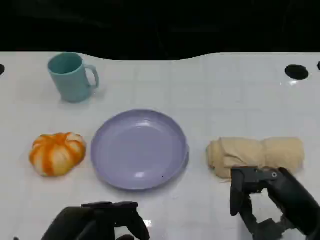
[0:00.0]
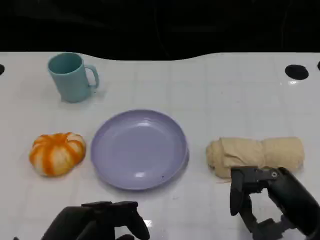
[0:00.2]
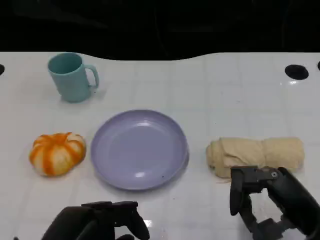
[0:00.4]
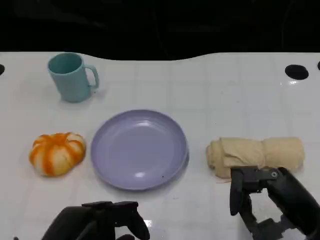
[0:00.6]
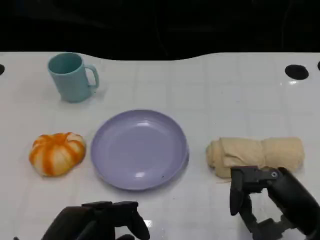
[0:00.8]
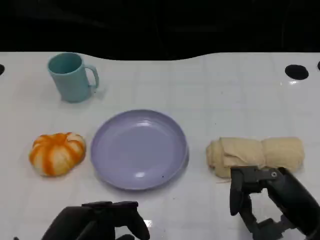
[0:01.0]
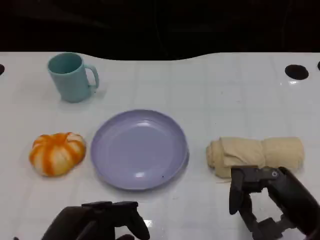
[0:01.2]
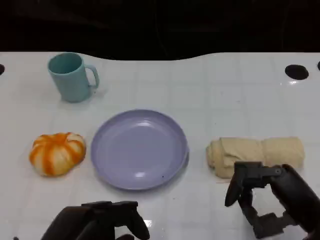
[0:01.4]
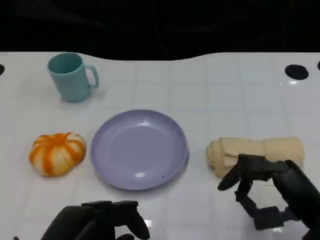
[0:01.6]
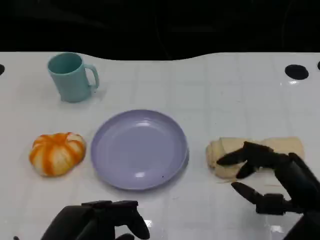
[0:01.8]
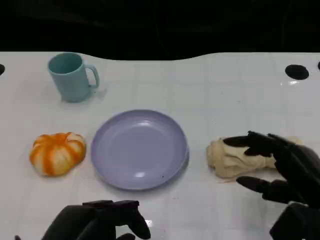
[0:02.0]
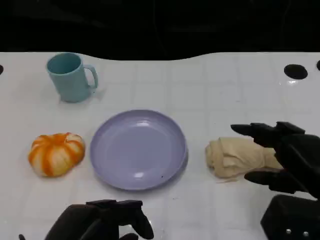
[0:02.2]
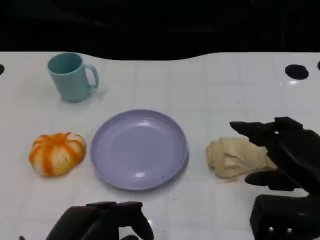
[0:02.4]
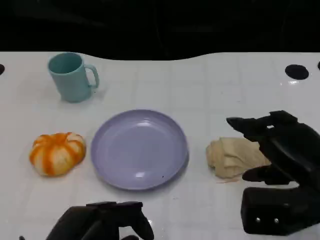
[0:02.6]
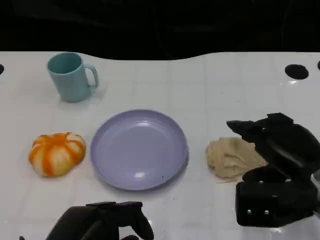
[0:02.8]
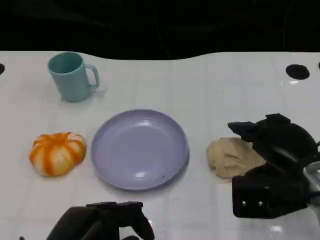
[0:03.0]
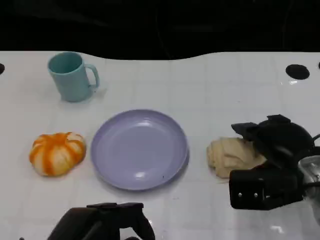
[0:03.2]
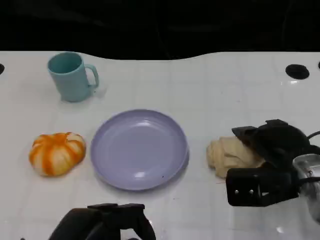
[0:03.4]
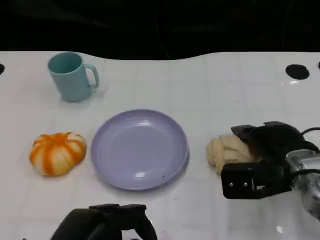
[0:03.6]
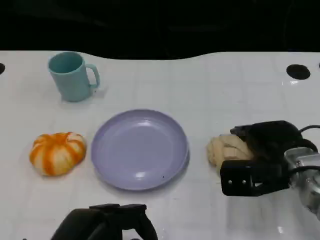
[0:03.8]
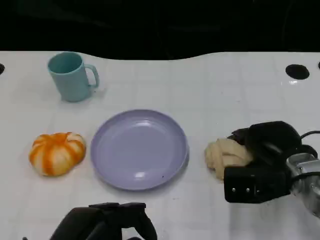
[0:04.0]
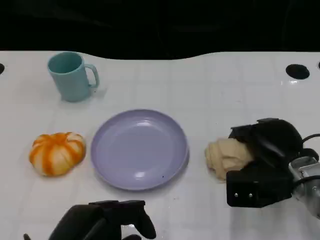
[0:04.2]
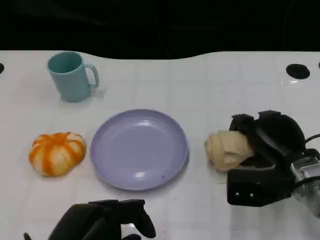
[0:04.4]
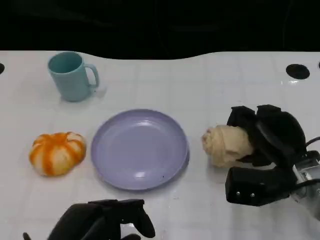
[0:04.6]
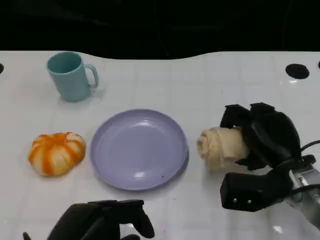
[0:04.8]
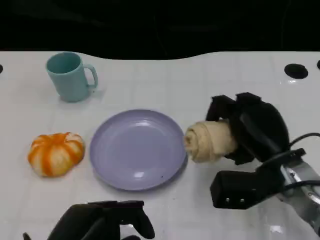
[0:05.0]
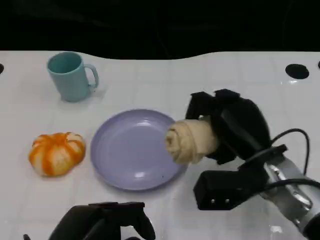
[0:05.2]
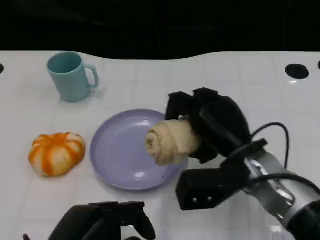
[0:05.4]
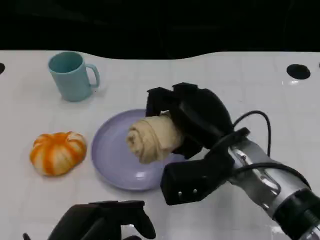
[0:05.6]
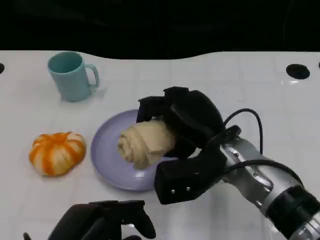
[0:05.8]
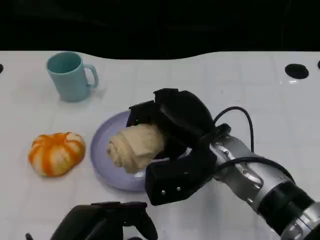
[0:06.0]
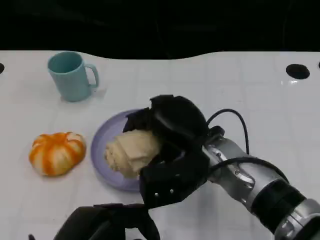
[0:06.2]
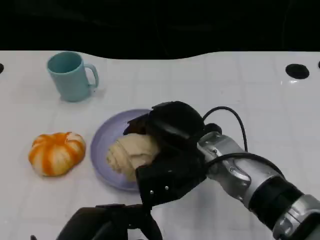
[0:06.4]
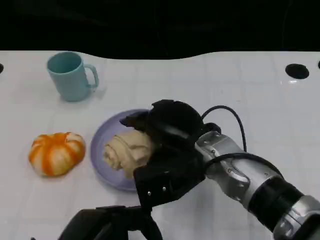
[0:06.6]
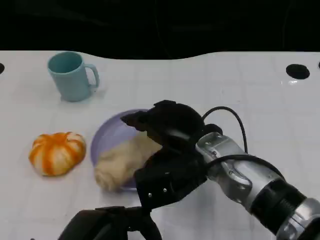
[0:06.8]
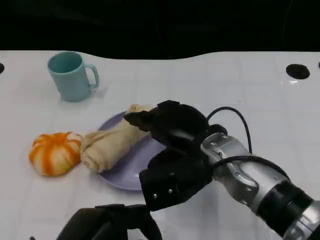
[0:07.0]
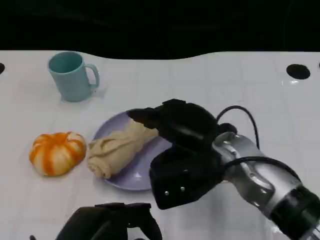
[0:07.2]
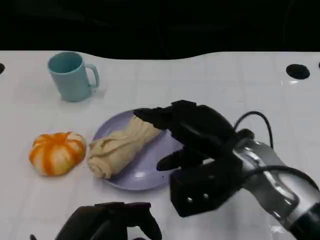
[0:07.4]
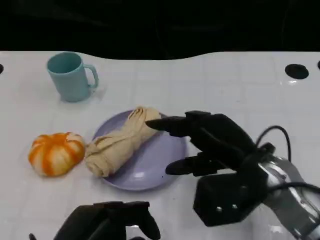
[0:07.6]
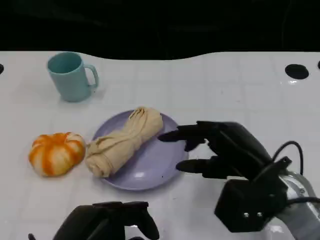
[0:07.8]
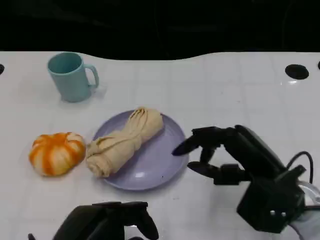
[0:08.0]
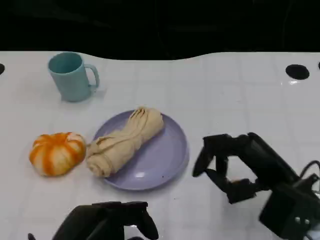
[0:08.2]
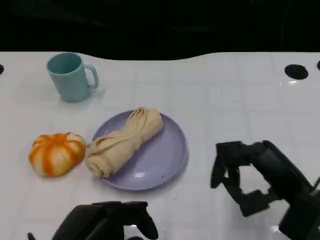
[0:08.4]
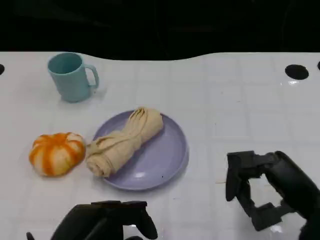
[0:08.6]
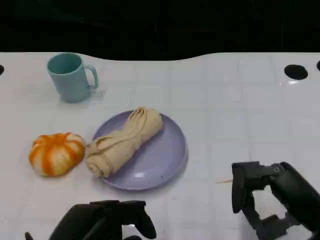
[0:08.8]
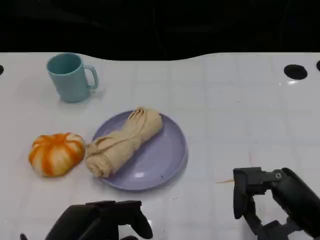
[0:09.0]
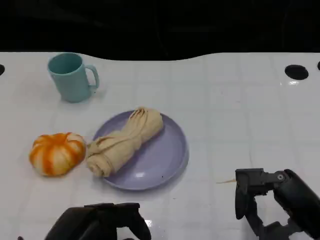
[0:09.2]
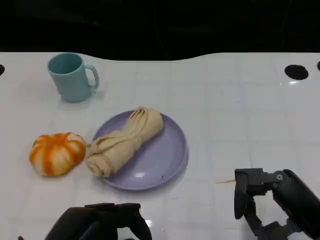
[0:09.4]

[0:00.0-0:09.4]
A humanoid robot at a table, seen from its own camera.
Task of the whole recording: Grasp the towel on the left side of the plate with the left hand and place it into the plate.
0:00.0 to 0:01.6: The hands stay close to where they were, moving slightly.
0:01.6 to 0:03.2: The right hand moves forward, about 10 cm.
0:04.8 to 0:06.2: The right hand heads to the left, covering roughly 10 cm.
0:06.2 to 0:07.8: The right hand heads to the right, covering approximately 10 cm.
0:07.8 to 0:09.4: The right hand travels to the right and backward by approximately 10 cm.

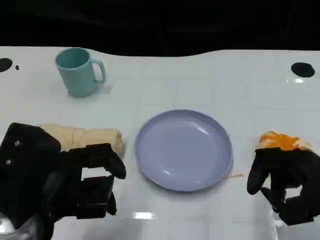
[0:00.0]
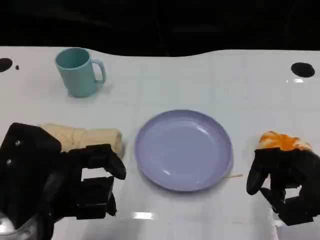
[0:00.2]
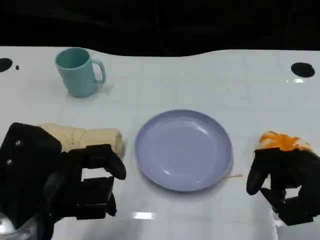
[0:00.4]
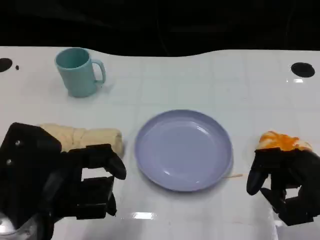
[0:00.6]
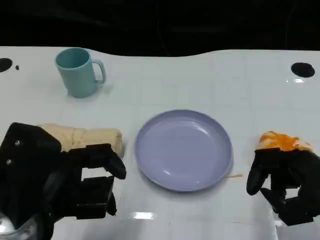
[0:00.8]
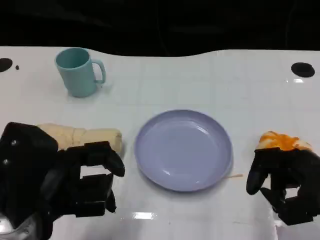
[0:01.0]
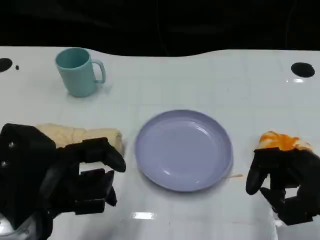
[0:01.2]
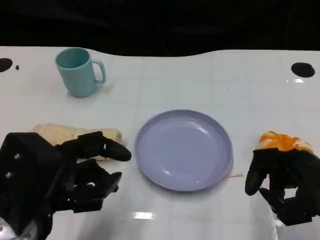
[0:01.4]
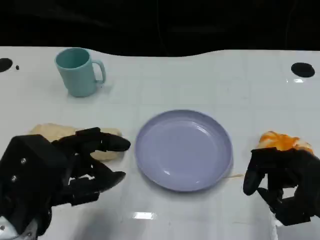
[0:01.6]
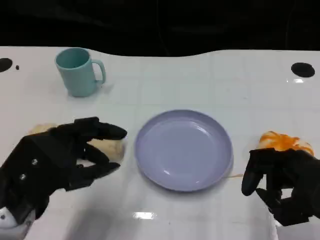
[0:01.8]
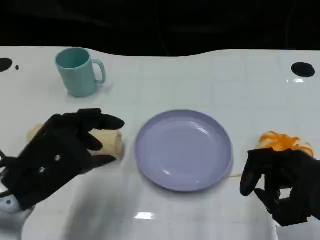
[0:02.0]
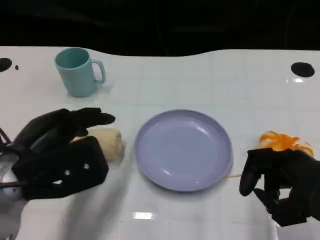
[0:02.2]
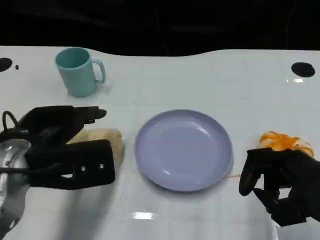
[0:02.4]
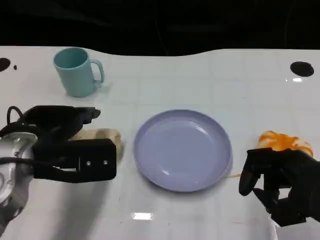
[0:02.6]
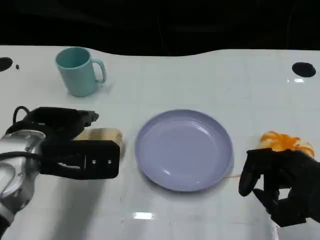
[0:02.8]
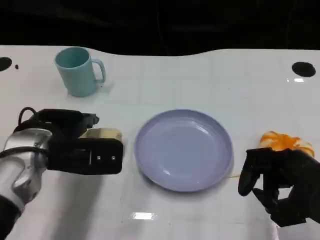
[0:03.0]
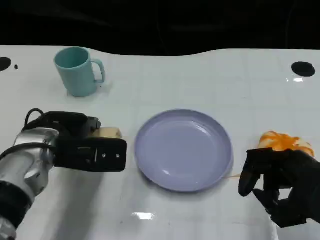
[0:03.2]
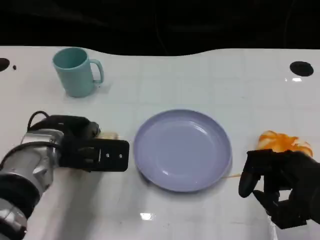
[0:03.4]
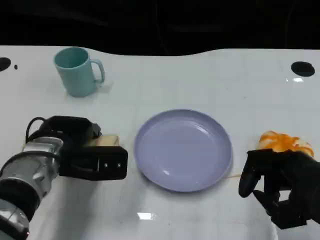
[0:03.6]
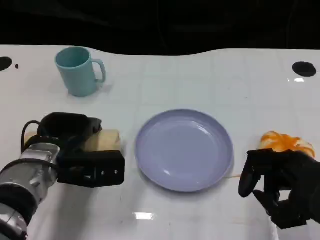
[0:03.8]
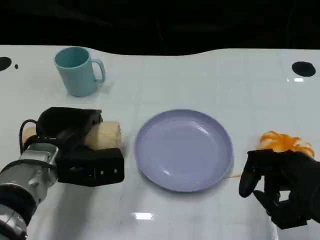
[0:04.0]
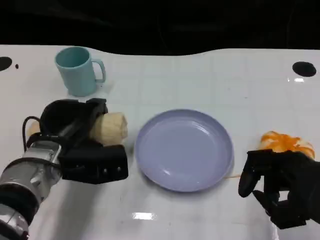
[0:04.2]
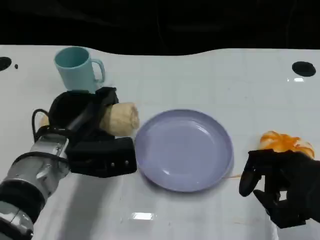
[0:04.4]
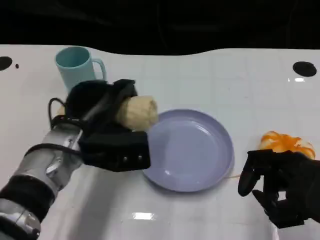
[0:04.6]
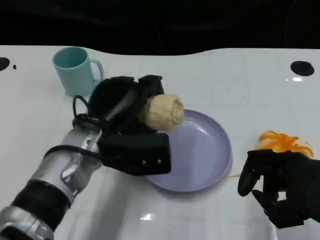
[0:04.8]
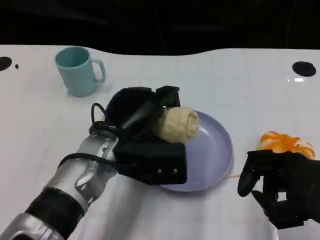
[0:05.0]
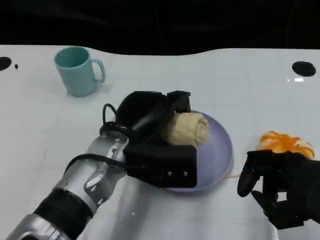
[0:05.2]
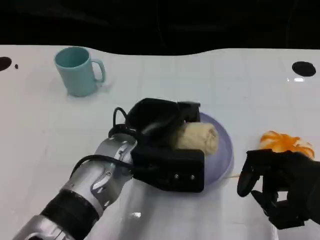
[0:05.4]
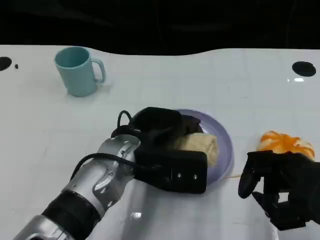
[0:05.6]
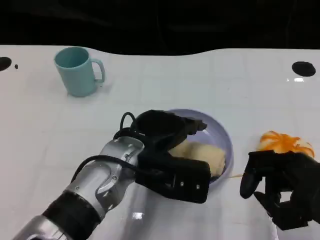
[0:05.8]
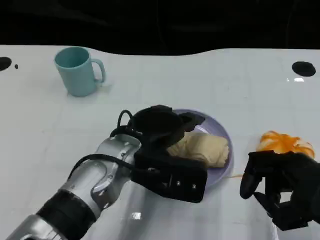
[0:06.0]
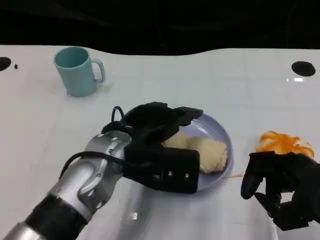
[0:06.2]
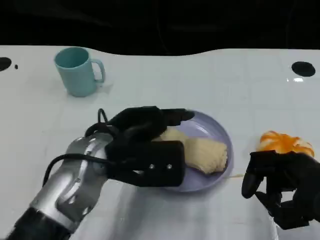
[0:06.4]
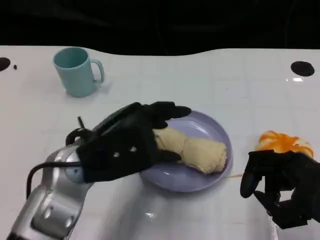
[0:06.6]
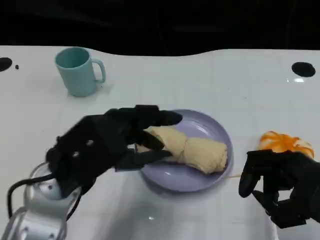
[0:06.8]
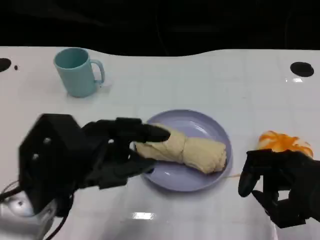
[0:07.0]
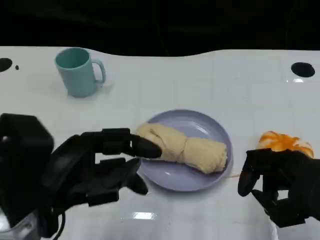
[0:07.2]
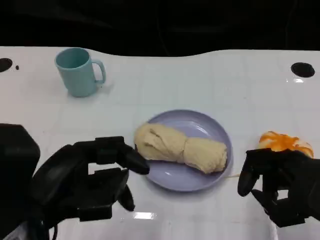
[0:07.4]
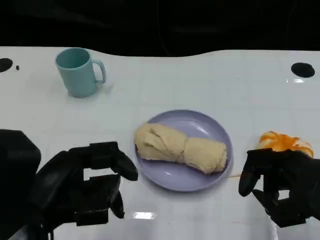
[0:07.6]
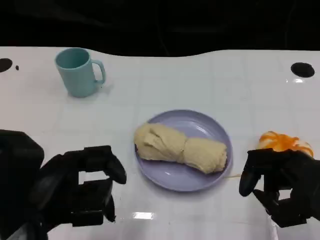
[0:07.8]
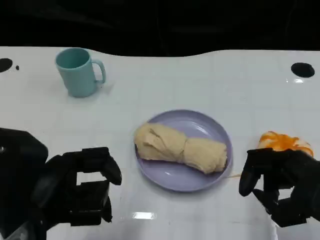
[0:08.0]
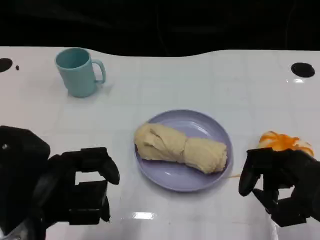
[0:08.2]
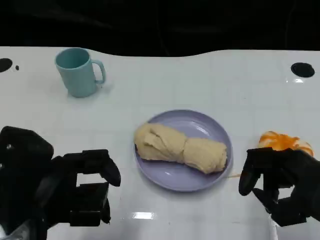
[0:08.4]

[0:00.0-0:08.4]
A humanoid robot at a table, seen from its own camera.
Task of the whole recording: Grasp the towel on the left side of the plate with the left hand and place it into the plate.
0:00.0 to 0:01.4: There are only small adjustments of the hands.
0:01.4 to 0:02.8: The left hand travels forward by roughly 10 cm.
0:02.8 to 0:04.2: The left hand shifts about 5 cm downward.
0:04.2 to 0:05.6: The left hand is displaced to the right by some 10 cm.
0:05.6 to 0:07.0: The left hand shifts roughly 15 cm to the left and backward.
0:07.0 to 0:08.4: The hands make only small movements.

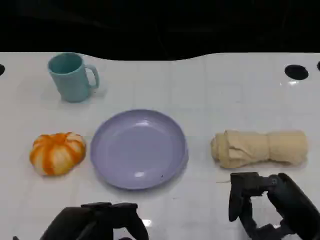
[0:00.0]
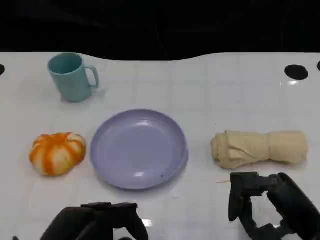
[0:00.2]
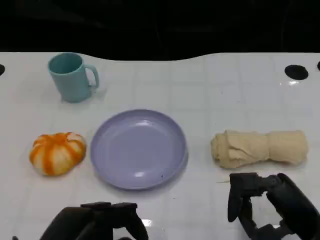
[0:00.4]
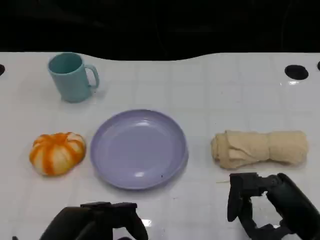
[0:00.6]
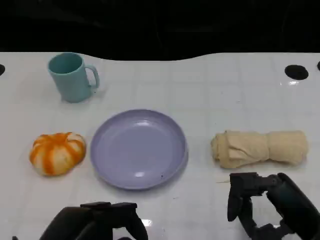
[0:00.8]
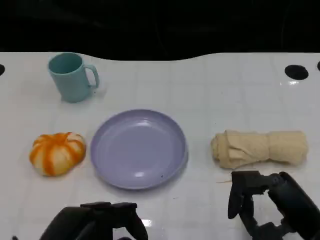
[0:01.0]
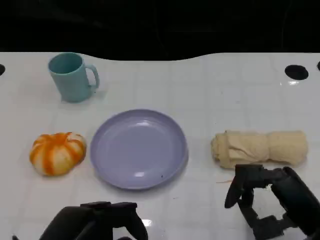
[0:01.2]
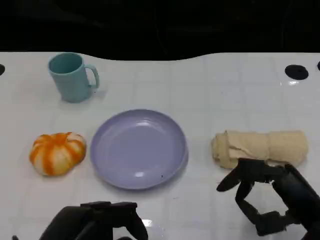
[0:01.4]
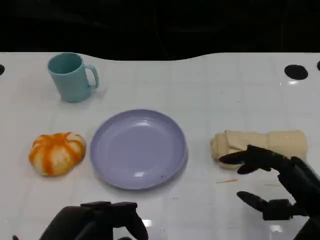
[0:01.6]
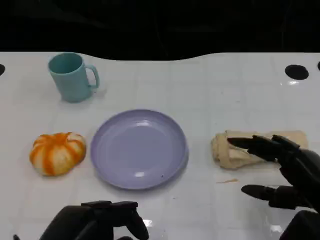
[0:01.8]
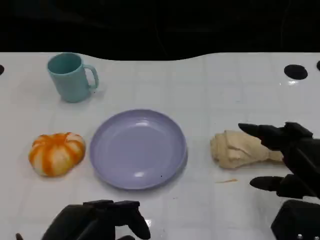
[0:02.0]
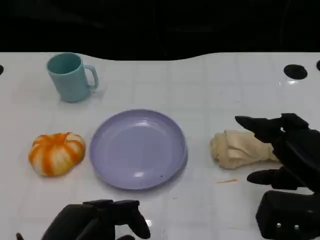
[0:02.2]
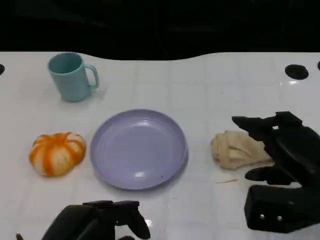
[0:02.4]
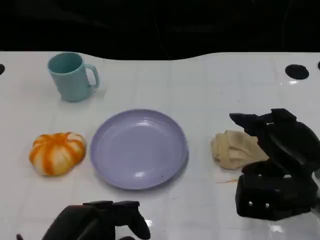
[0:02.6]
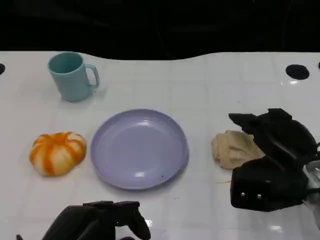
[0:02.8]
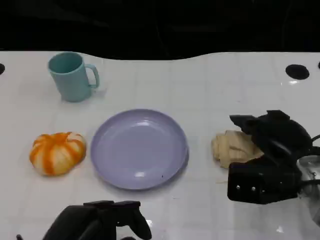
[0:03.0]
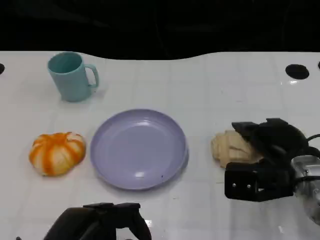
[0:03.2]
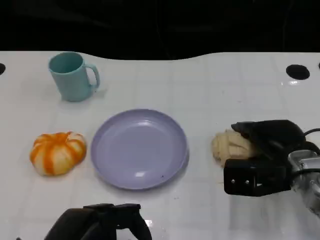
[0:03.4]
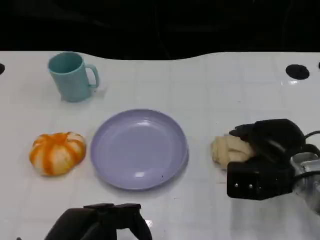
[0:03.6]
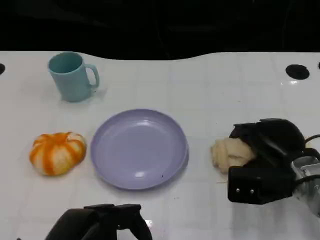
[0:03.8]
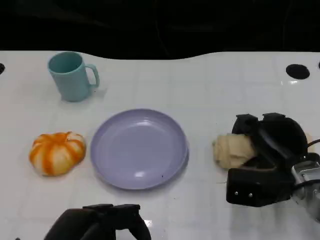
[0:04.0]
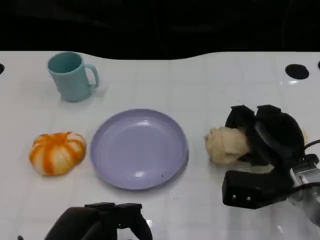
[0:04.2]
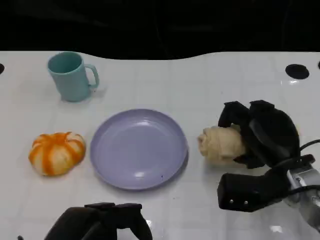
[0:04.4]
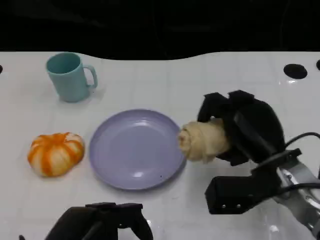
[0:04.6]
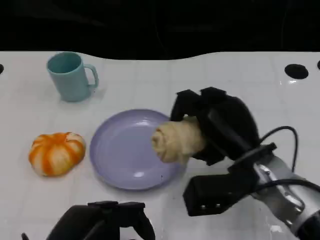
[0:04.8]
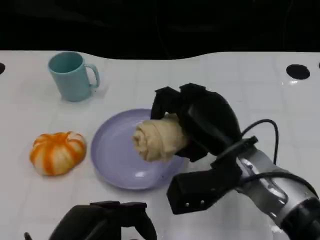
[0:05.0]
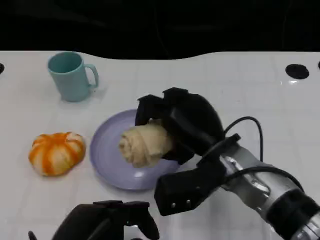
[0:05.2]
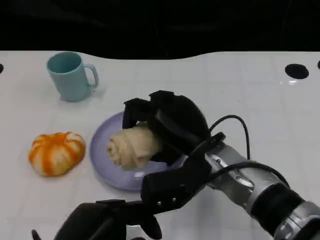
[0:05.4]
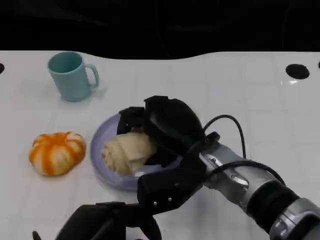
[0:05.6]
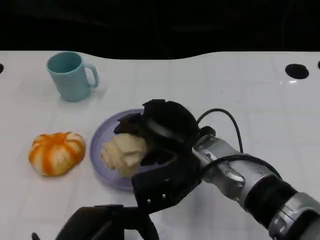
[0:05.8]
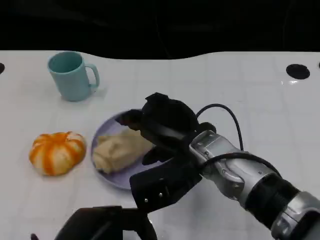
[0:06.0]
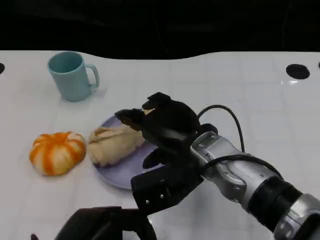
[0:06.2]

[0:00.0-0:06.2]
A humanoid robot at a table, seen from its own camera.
Task of the whole recording: Grasp the towel on the left side of the plate with the left hand and place it into the plate.
0:00.0 to 0:01.6: The hands make only small movements.
0:01.6 to 0:03.2: The right hand heads forward, covering about 10 cm.
0:04.6 to 0:06.2: The right hand moves to the left, approximately 10 cm.
